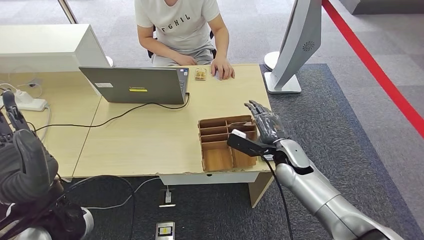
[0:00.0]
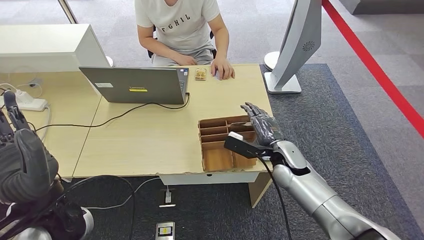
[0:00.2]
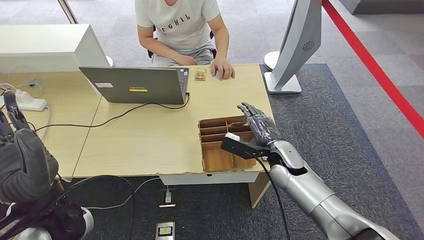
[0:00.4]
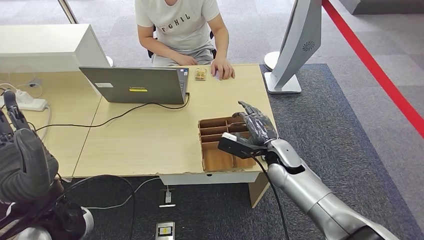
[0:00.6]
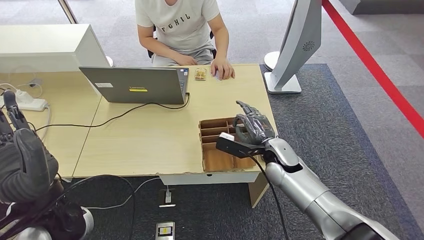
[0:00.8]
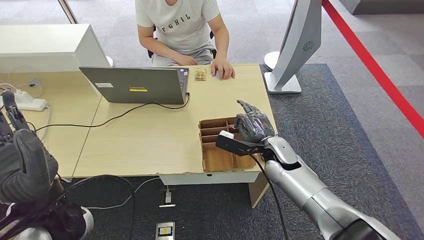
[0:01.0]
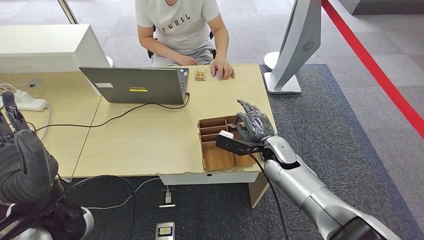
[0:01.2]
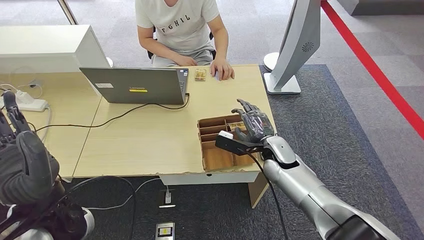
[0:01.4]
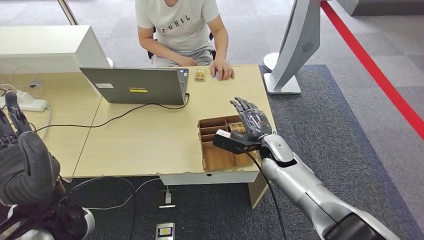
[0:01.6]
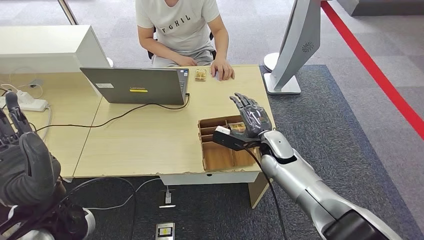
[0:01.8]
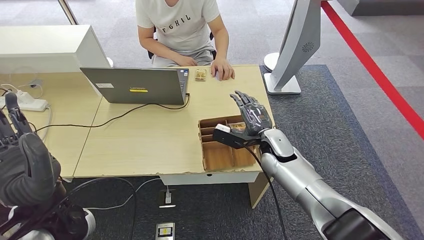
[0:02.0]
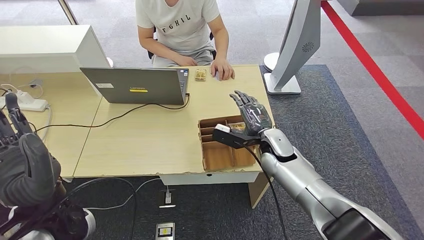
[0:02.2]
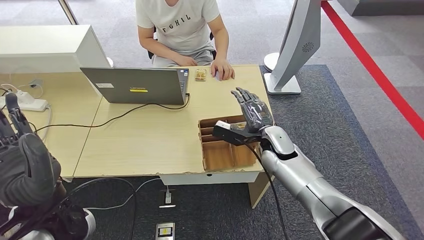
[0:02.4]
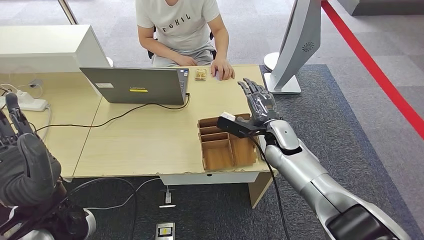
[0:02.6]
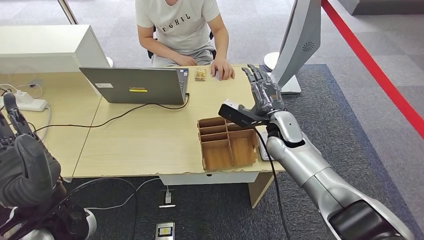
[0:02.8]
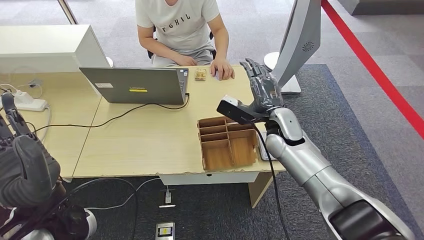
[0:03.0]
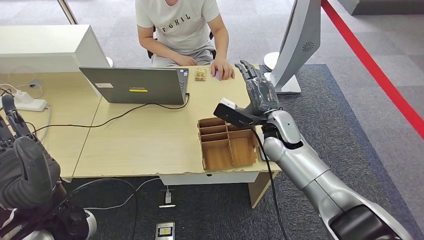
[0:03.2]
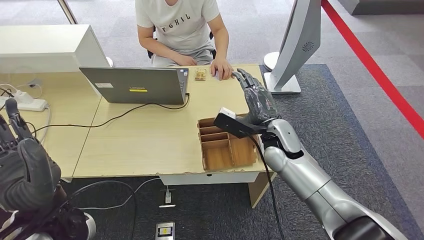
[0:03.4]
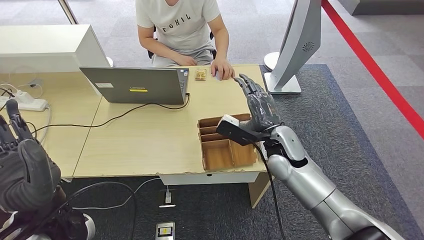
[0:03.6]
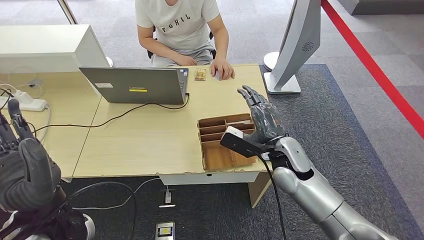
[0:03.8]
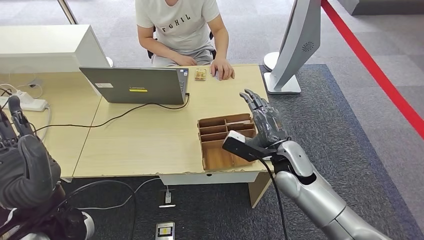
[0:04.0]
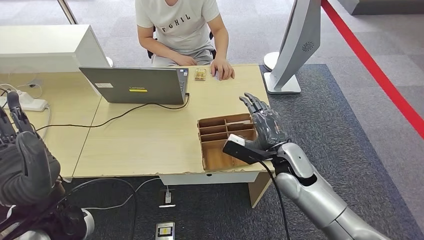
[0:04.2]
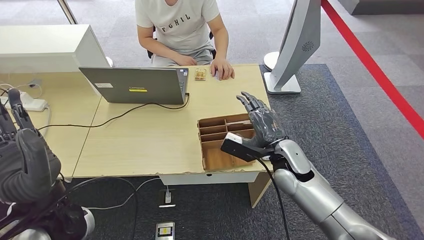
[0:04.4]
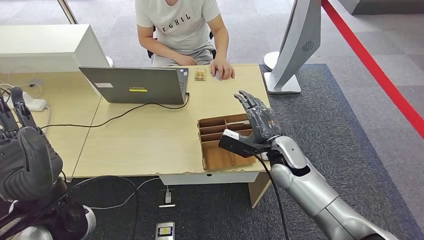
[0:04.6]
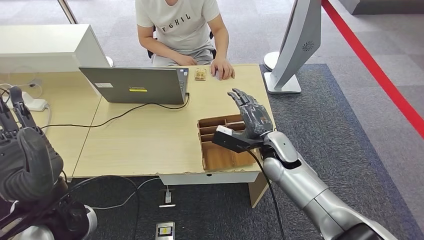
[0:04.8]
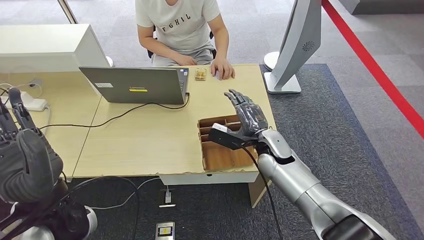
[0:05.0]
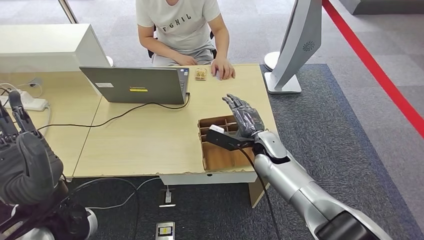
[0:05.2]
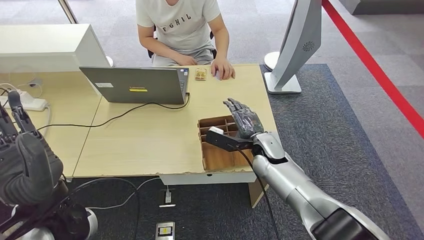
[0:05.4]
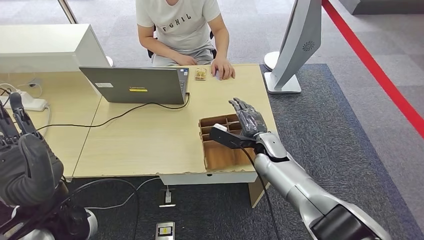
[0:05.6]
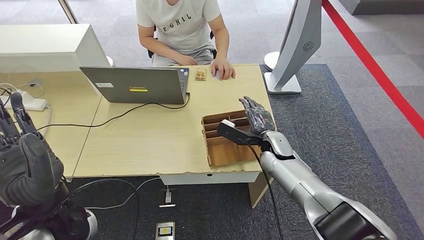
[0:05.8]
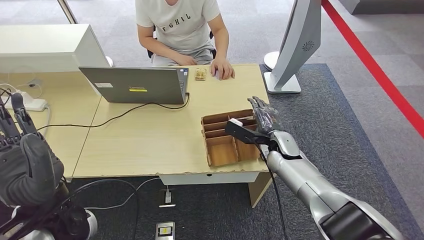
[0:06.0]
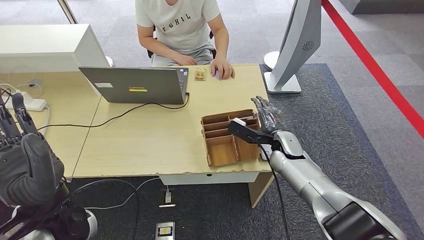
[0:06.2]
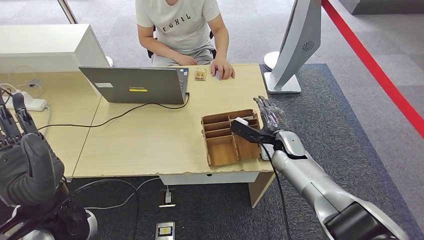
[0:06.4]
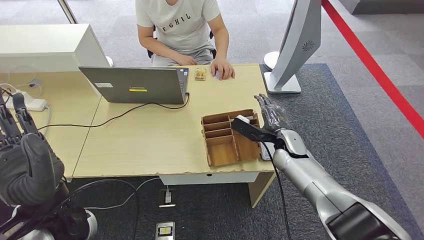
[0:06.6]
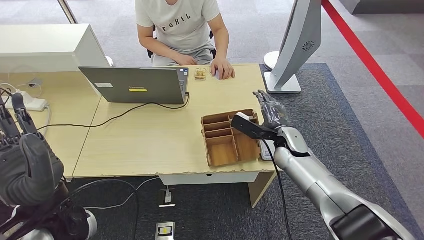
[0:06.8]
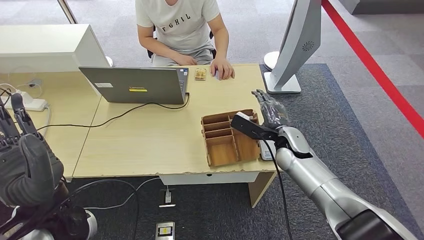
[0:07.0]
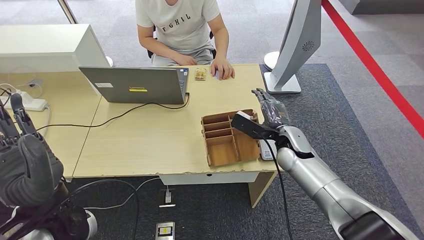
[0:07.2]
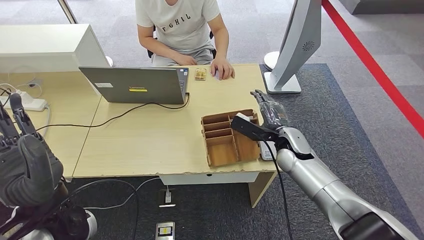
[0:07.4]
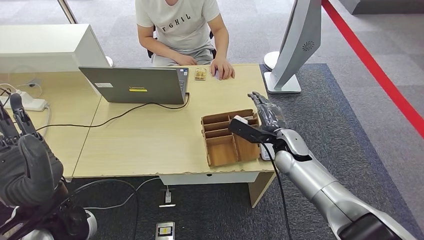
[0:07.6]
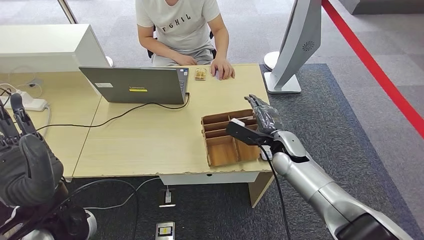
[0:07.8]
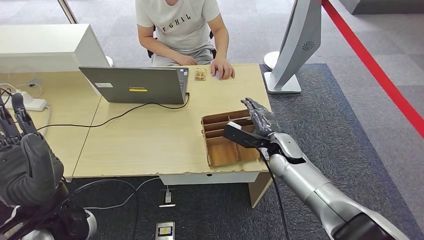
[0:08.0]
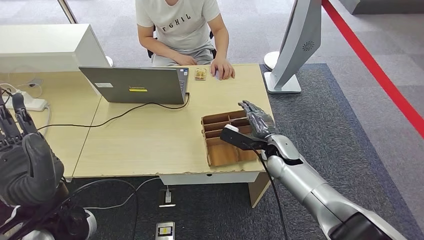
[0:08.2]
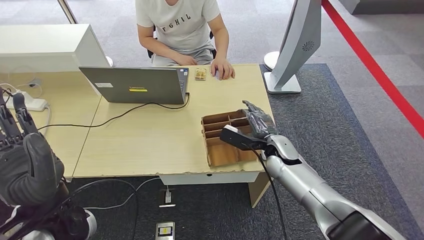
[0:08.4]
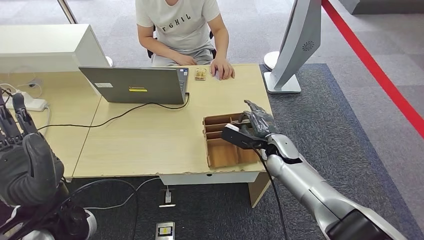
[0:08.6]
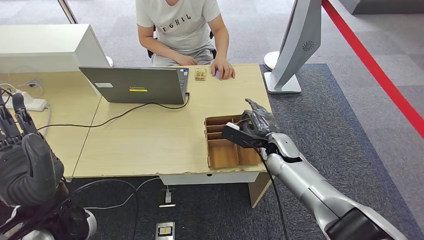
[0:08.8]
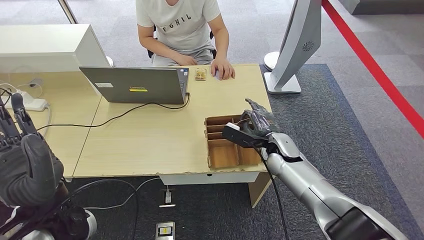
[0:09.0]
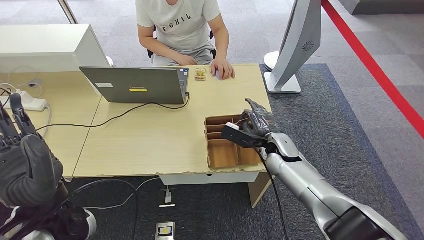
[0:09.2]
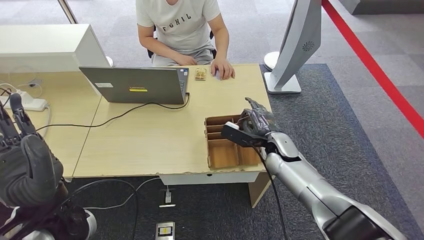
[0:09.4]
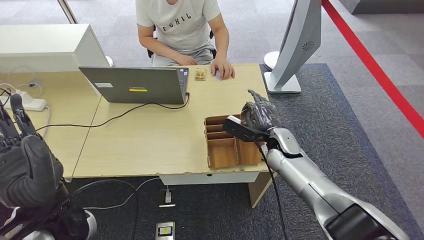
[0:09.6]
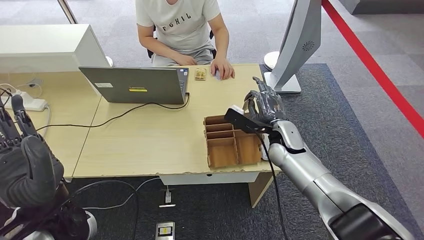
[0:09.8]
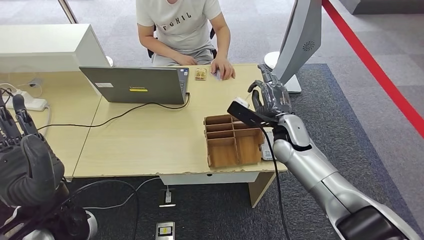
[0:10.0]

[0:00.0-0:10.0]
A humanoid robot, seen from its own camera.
0:00.0 to 0:01.4: The hands move only a little.
0:01.4 to 0:02.8: The right hand goes about 5 cm upward.
0:02.8 to 0:04.2: The right hand heads backward, covering some 10 cm.
0:04.2 to 0:05.8: The right hand goes about 10 cm forward.
0:05.8 to 0:08.6: The hands stay close to where they were, moving slightly.
0:08.6 to 0:10.0: The right hand shifts about 5 cm upward.

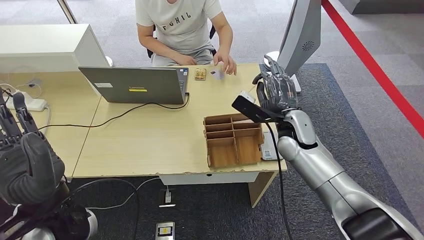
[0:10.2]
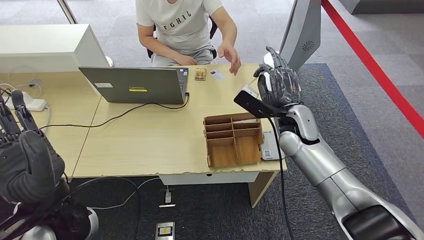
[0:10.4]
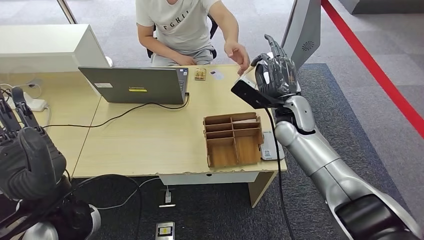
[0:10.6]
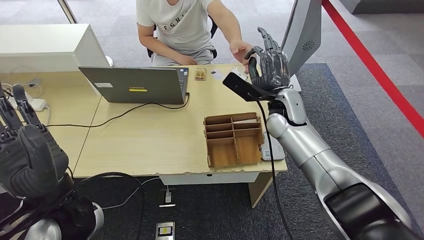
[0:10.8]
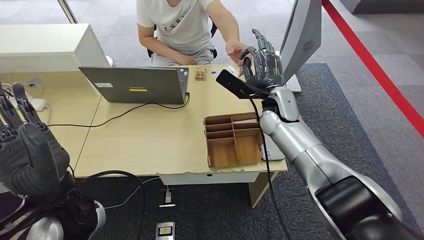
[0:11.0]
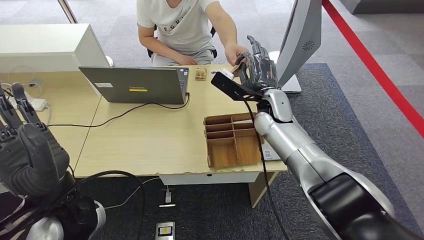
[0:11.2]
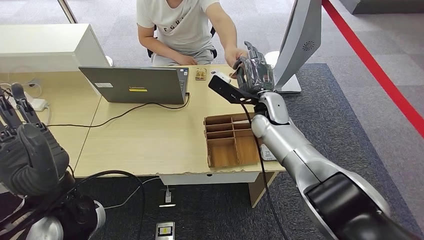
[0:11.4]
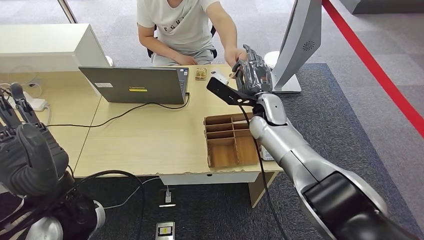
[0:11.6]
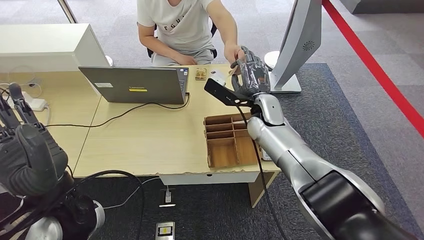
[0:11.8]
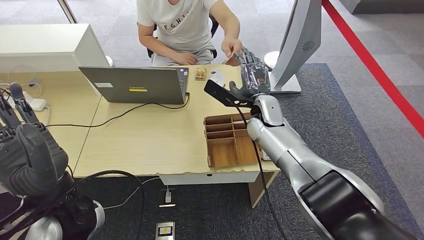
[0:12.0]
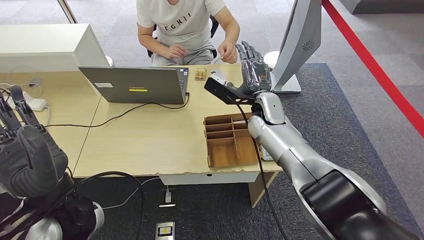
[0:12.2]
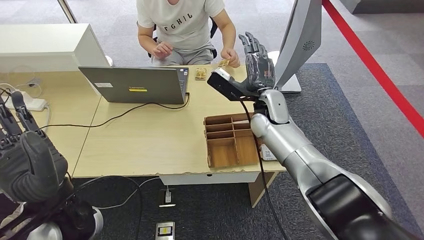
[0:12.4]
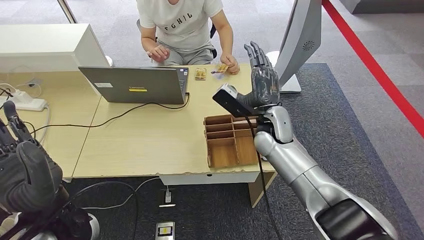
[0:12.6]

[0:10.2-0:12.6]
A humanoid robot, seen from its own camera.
Step, 0:10.8 to 0:12.6: Hand the room key to the person.
0:10.2 to 0:11.4: The right hand shifts roughly 10 cm to the left and forward.
0:11.4 to 0:12.6: There are only small adjustments of the hands.
